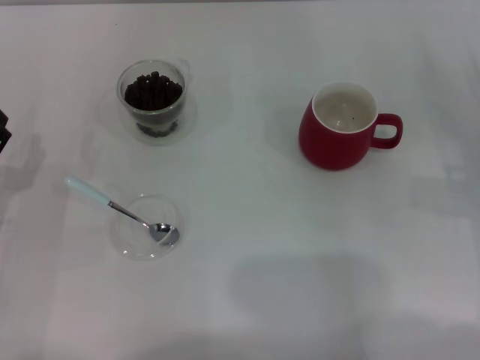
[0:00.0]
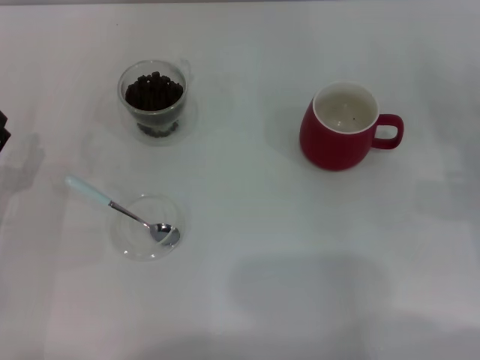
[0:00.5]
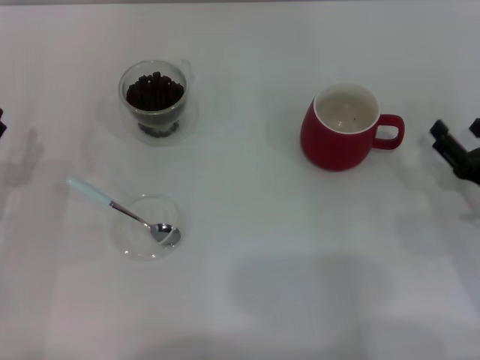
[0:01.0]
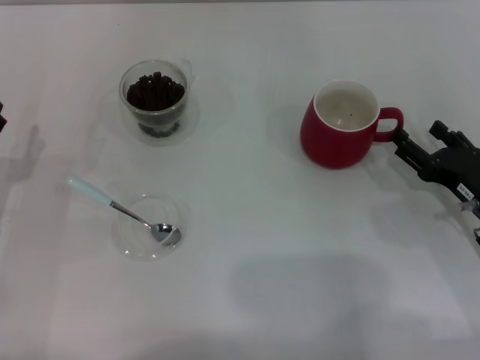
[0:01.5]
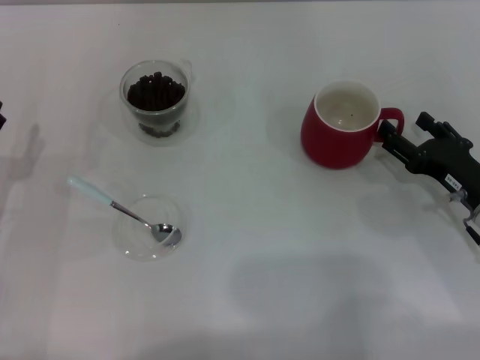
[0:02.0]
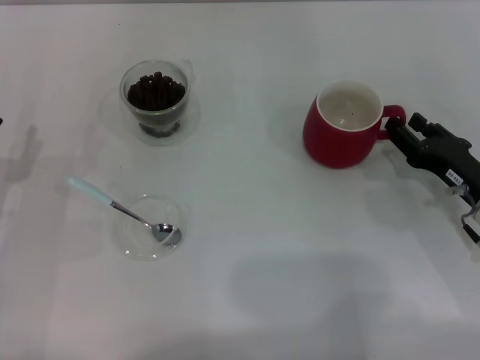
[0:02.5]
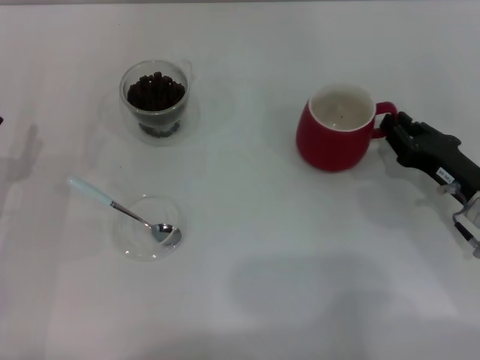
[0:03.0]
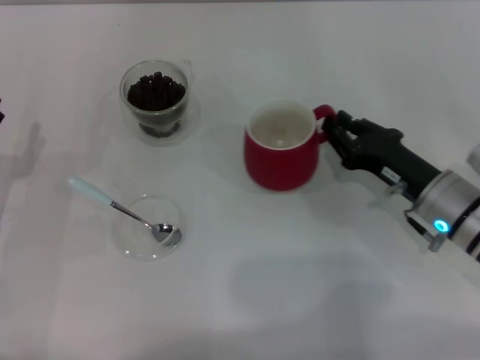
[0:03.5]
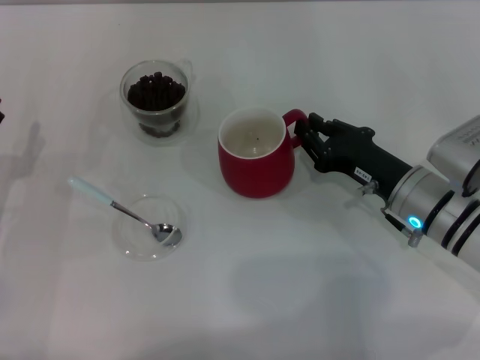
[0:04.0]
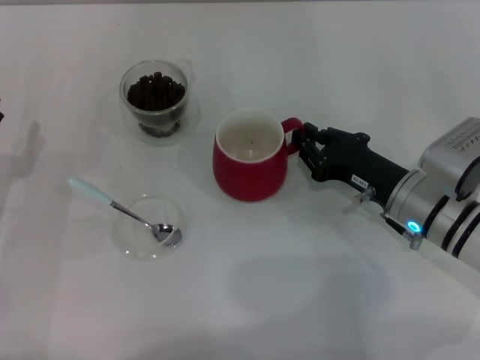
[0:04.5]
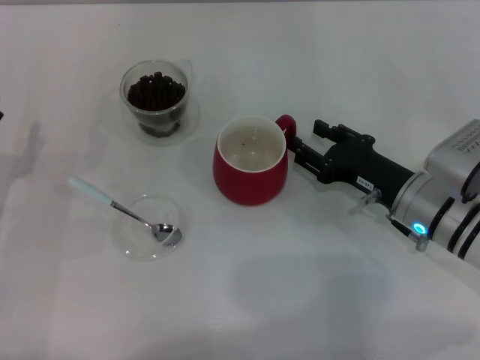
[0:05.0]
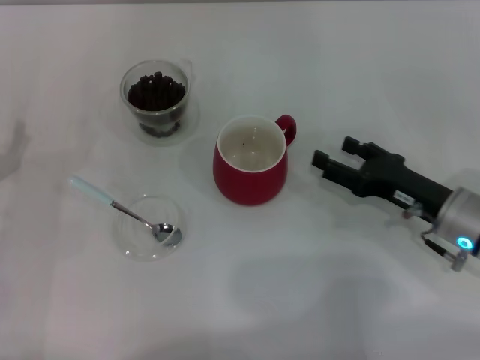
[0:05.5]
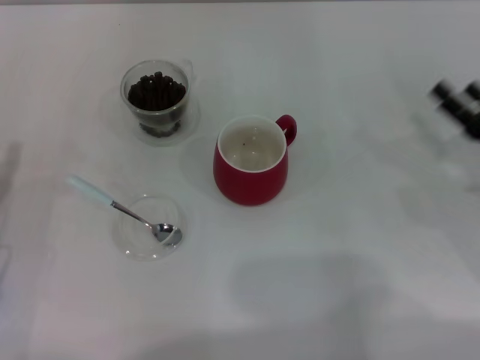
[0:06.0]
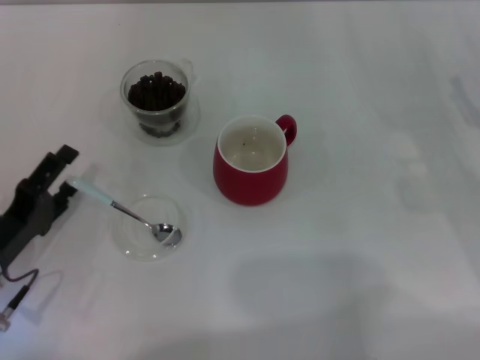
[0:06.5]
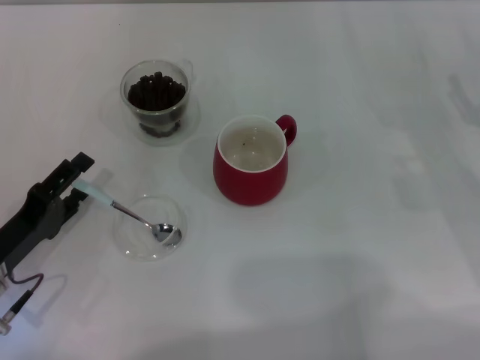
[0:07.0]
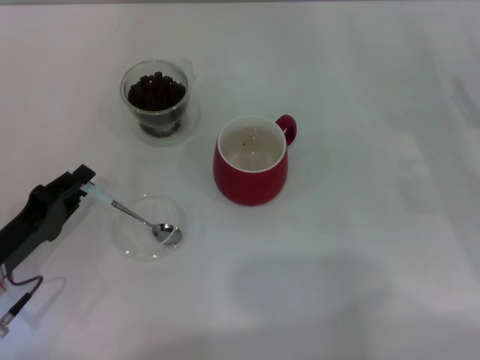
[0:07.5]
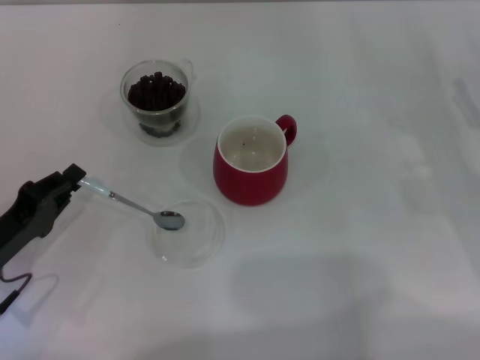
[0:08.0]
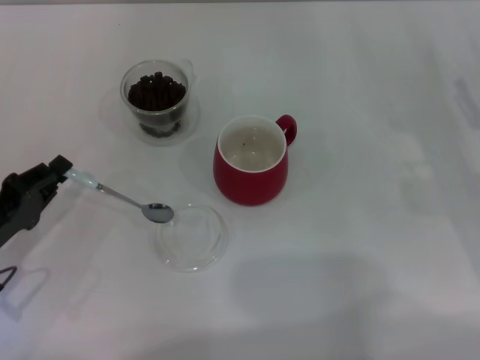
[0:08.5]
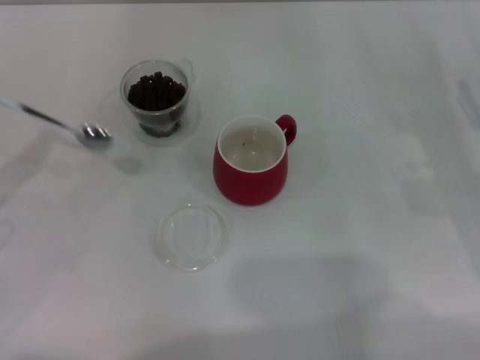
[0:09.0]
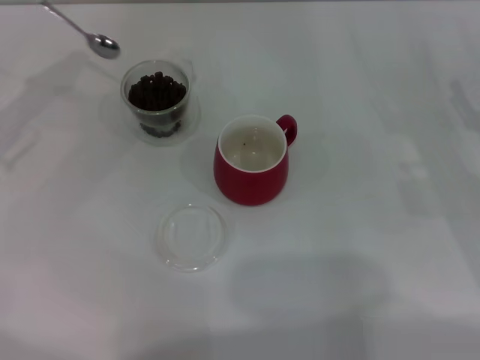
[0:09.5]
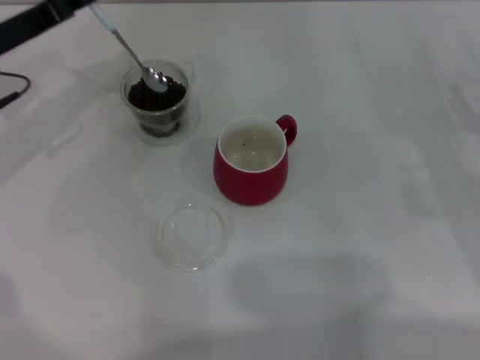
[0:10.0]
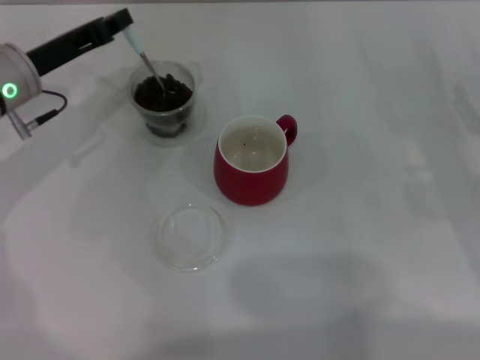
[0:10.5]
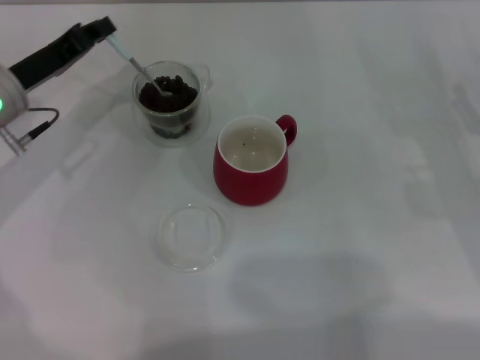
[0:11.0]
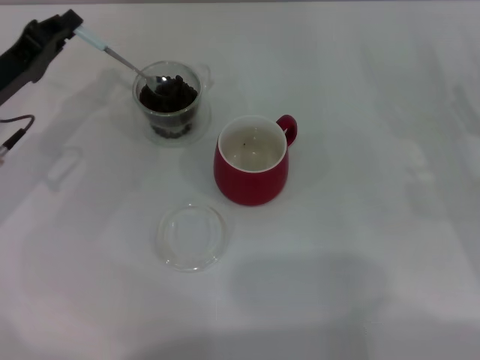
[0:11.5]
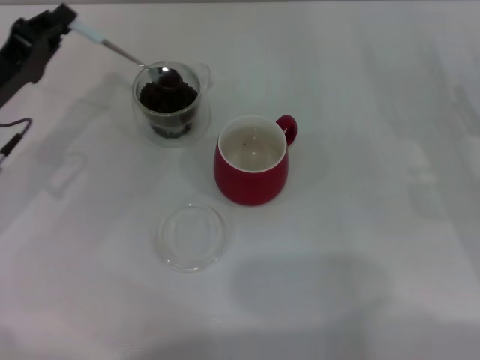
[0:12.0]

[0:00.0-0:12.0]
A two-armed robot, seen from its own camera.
Task of the whole recording: Use a blue spoon to take out the coffee beans from the glass and pour them into the red cup.
Step, 0:05.5 to 0:08.5: Pick up the spoon with the right gripper.
0:00.0 to 0:02.0: The right gripper heads to the left, covering roughly 5 cm.
0:02.0 to 0:04.0: The right gripper heads to the left, covering roughly 10 cm, and closes up.
0:04.0 to 0:06.0: The right gripper travels to the right by roughly 15 cm, and opens.
0:06.0 to 0:08.0: The left gripper closes.
0:08.0 to 0:10.0: The left gripper travels forward and upward by approximately 20 cm.
0:10.0 to 0:12.0: The left gripper goes roughly 5 cm backward.

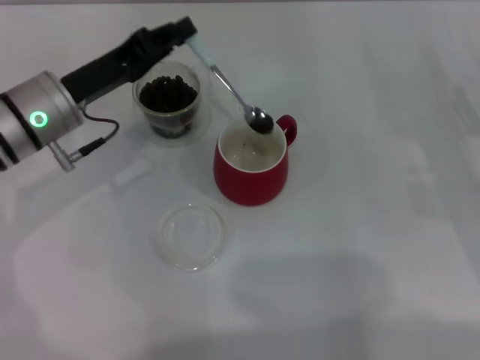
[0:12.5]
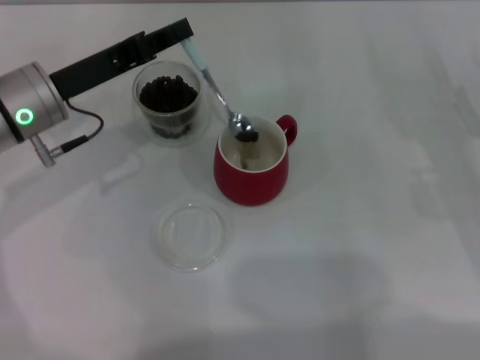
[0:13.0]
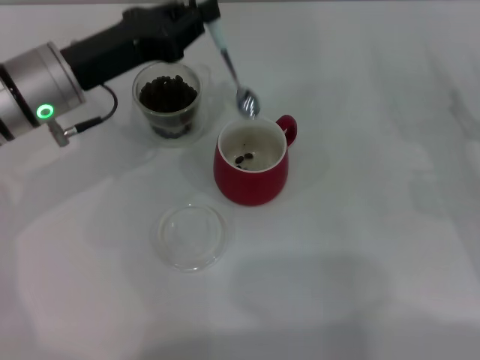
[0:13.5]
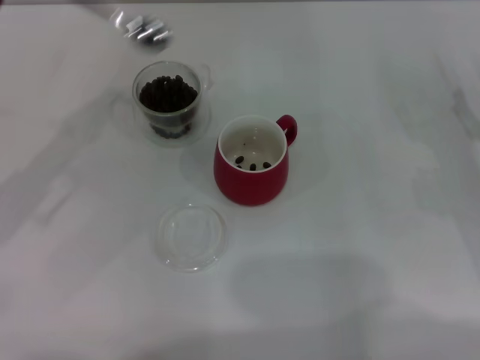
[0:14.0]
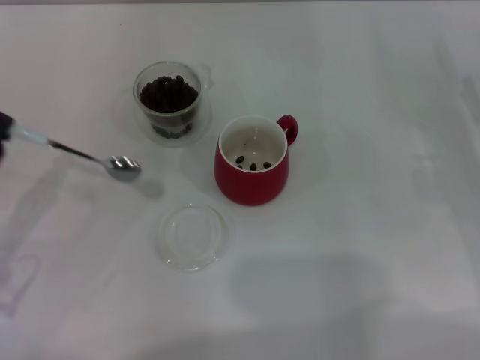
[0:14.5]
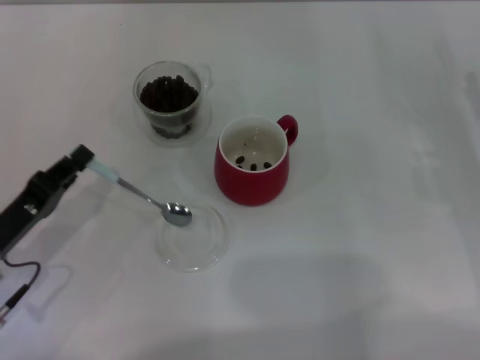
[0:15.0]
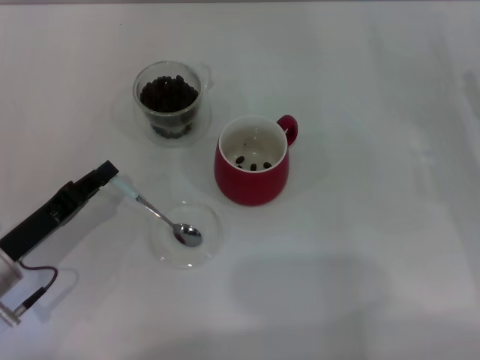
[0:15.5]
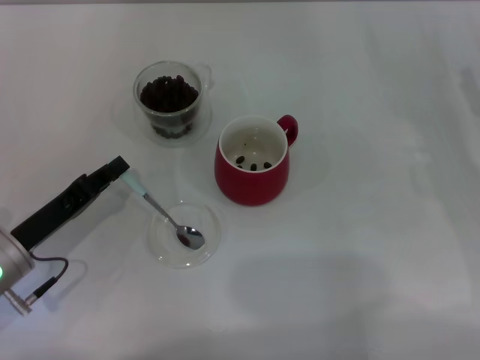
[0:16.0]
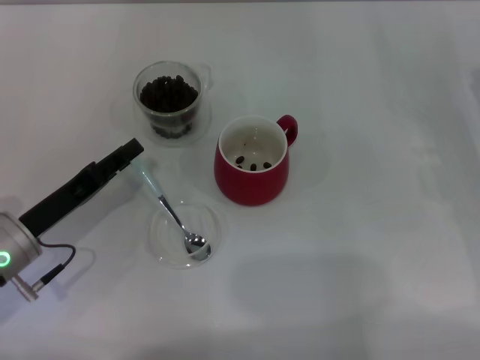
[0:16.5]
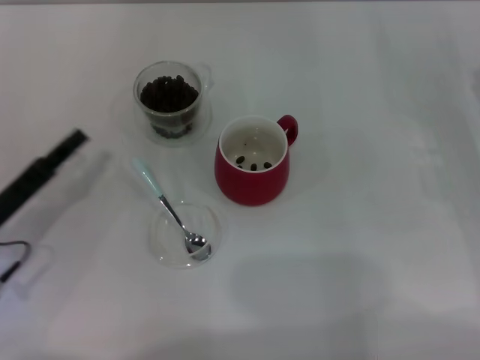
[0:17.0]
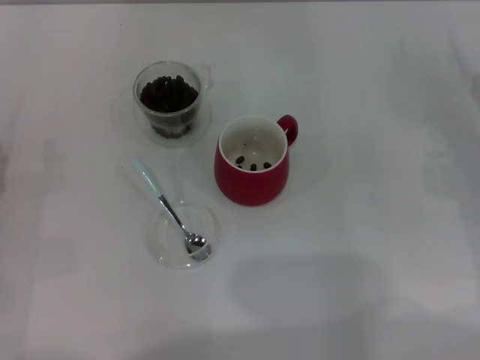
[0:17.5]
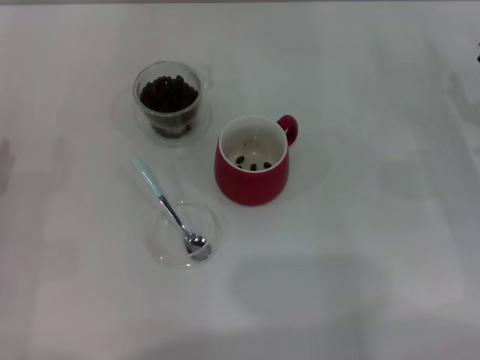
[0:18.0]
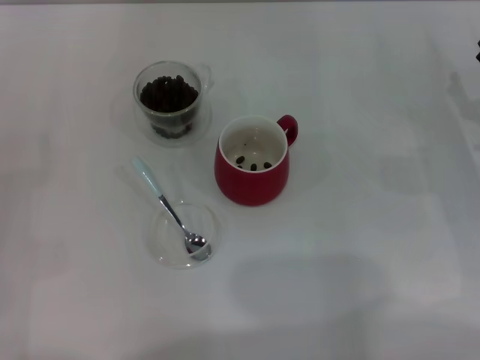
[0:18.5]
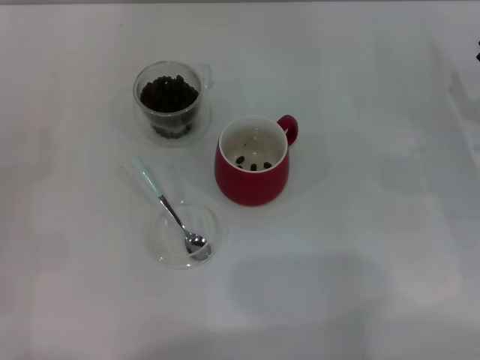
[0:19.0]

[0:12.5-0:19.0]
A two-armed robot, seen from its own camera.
Task of the whole recording: Use a blue spoon to take out the coffee beans from the glass and pour them into the red cup.
Step, 0:14.0 to 0:16.5: Place the spoon back in its original place with the right gripper.
0:12.5 to 0:14.5: The left gripper moves backward and to the left, some 20 cm.
0:14.5 to 0:17.0: The left gripper opens.
0:17.0 to 0:19.0: The left gripper moves to the left, roughly 5 cm, and opens its fingers.
